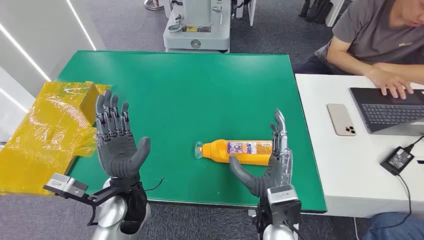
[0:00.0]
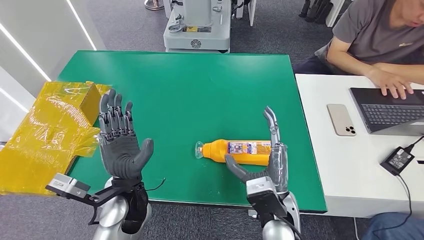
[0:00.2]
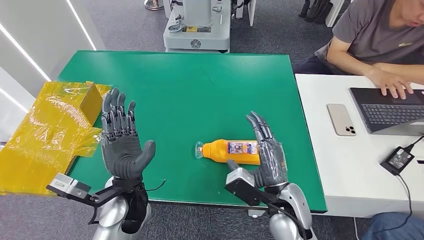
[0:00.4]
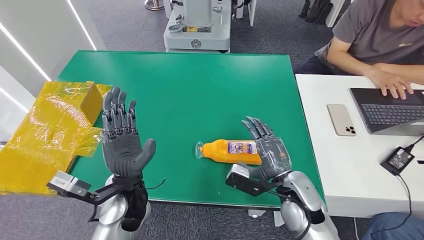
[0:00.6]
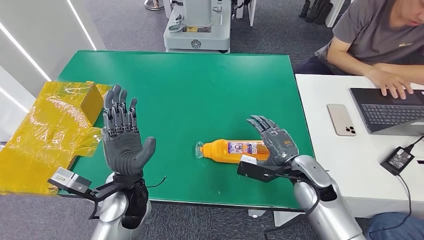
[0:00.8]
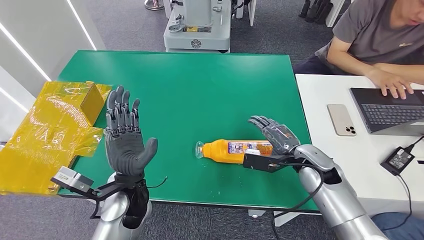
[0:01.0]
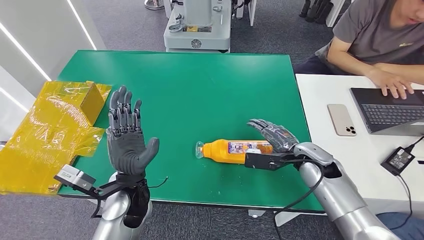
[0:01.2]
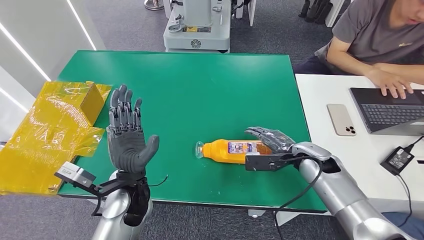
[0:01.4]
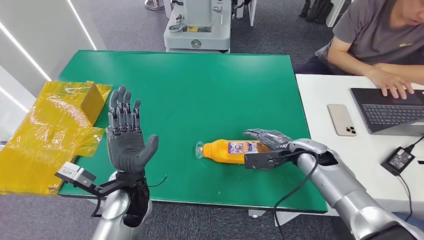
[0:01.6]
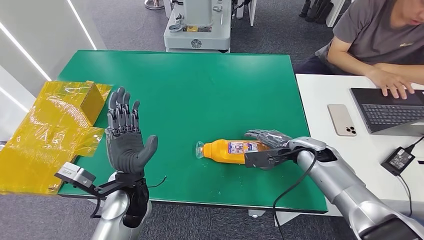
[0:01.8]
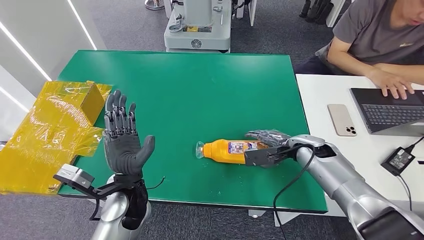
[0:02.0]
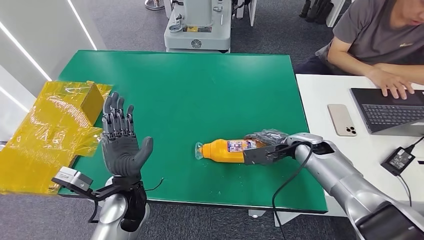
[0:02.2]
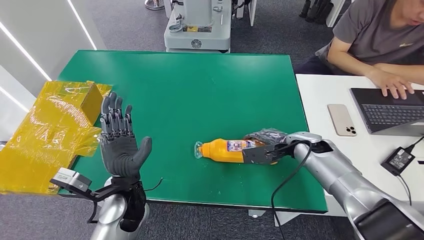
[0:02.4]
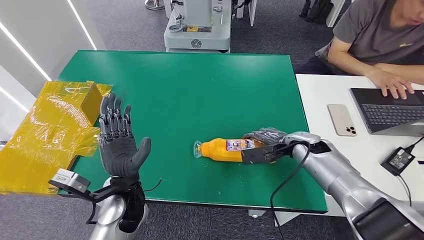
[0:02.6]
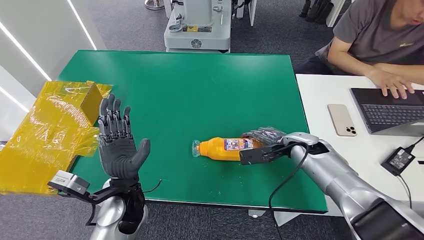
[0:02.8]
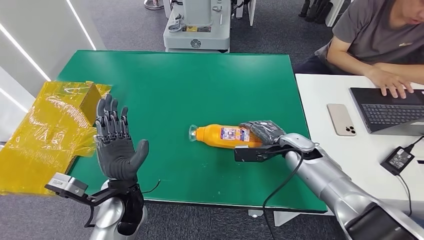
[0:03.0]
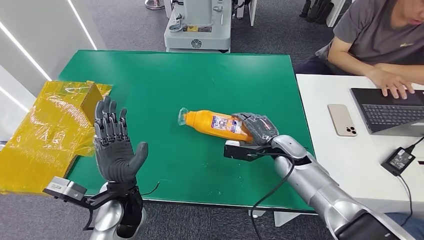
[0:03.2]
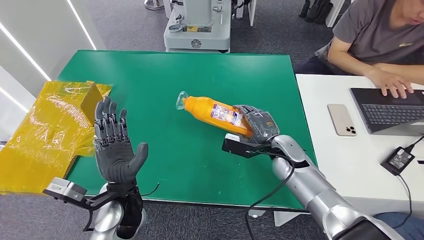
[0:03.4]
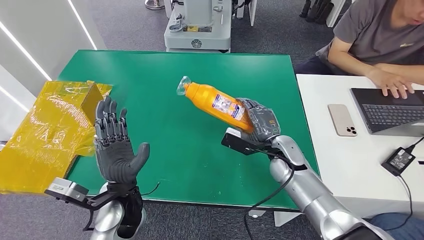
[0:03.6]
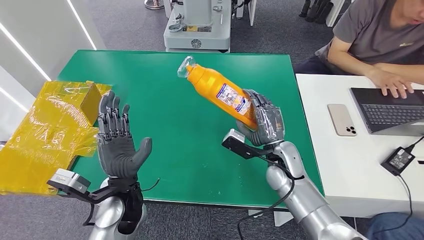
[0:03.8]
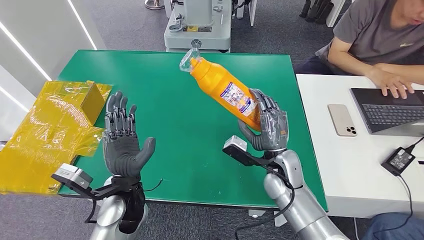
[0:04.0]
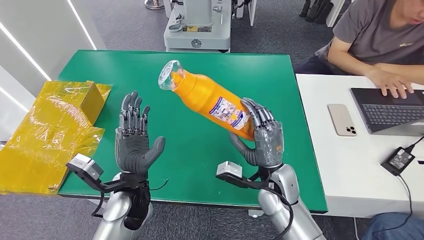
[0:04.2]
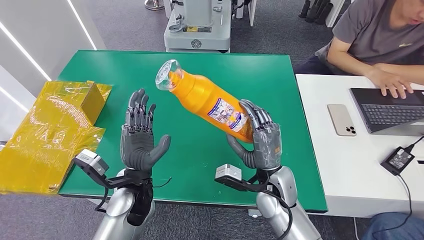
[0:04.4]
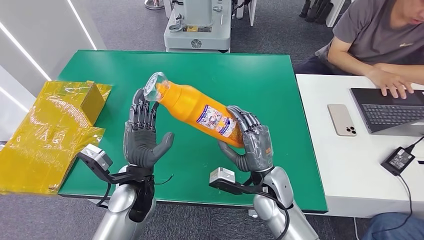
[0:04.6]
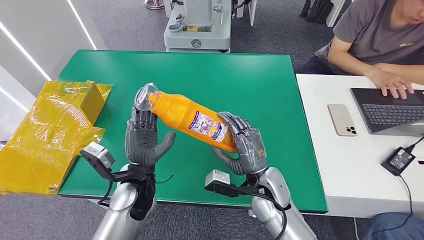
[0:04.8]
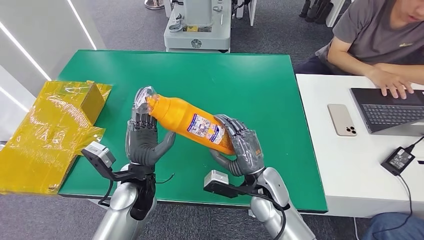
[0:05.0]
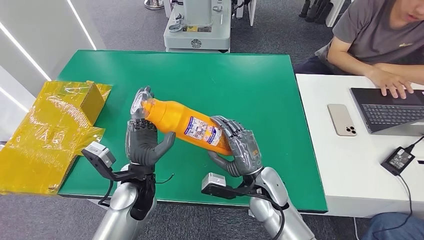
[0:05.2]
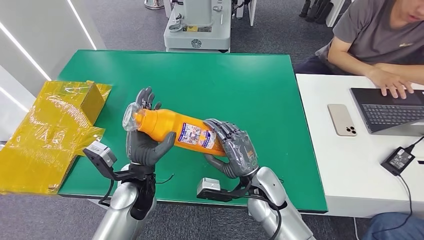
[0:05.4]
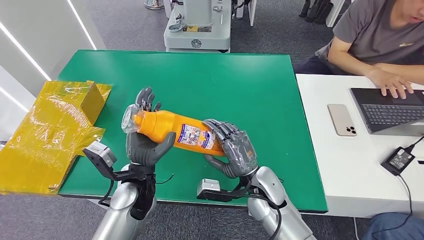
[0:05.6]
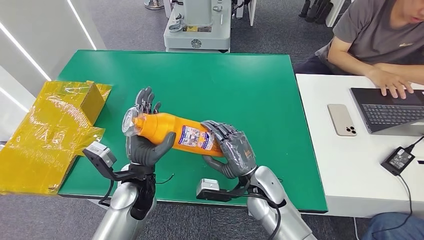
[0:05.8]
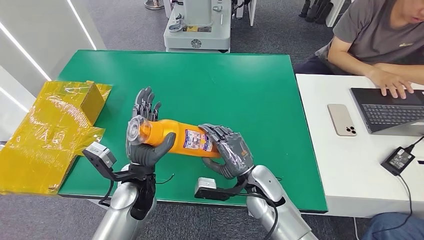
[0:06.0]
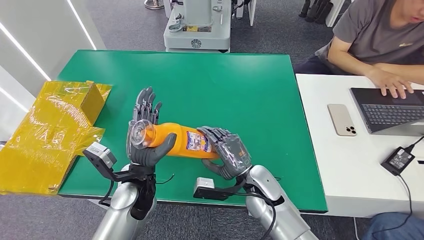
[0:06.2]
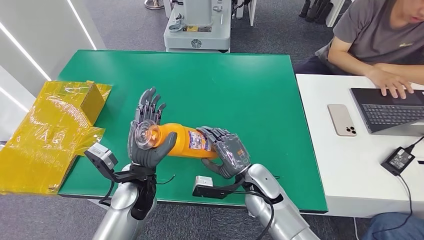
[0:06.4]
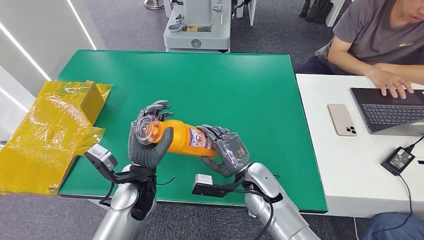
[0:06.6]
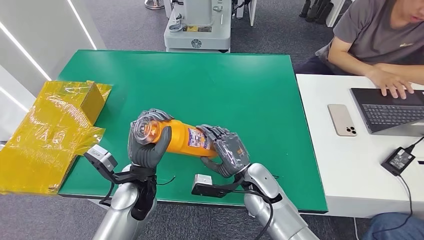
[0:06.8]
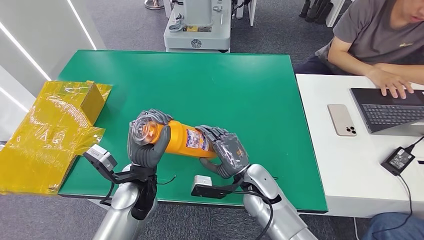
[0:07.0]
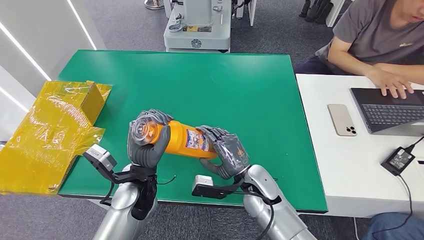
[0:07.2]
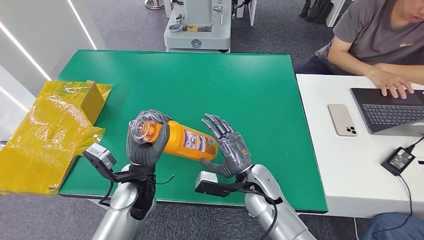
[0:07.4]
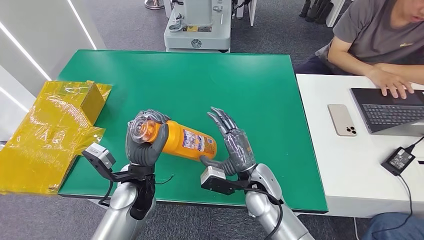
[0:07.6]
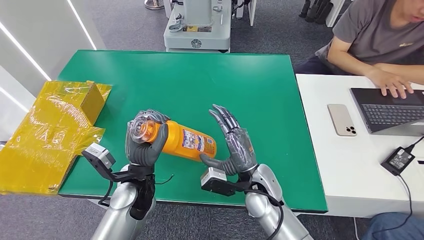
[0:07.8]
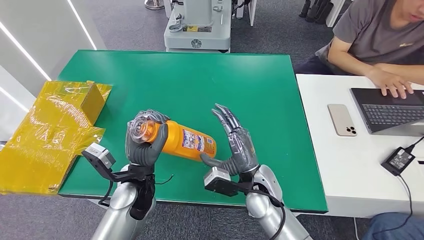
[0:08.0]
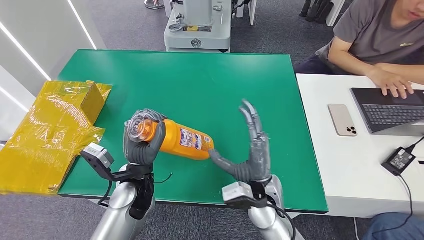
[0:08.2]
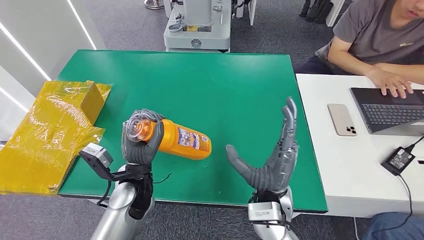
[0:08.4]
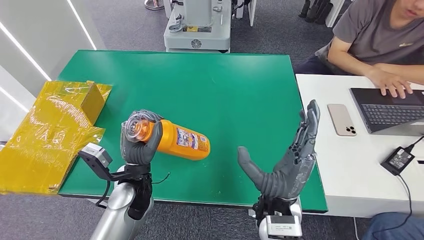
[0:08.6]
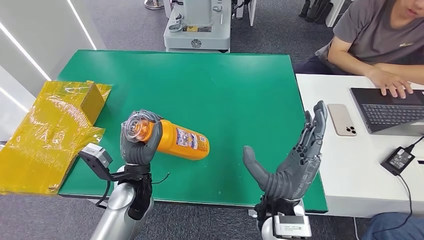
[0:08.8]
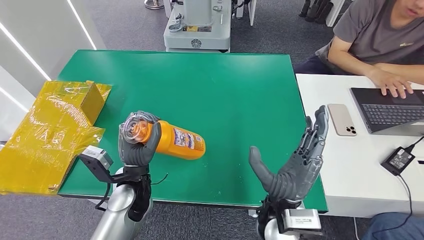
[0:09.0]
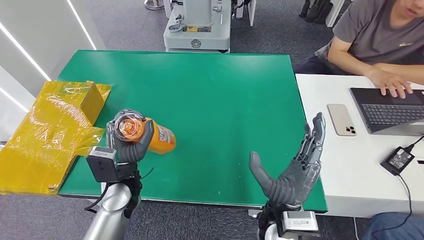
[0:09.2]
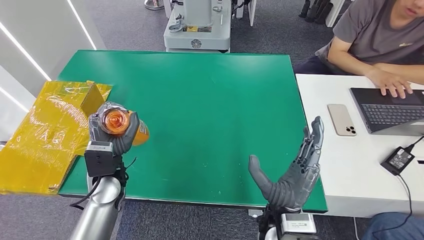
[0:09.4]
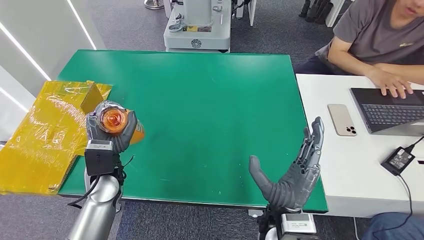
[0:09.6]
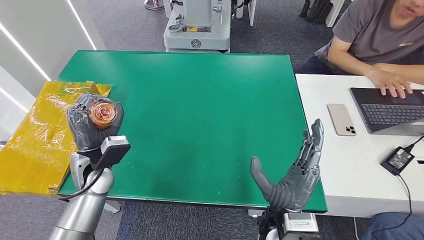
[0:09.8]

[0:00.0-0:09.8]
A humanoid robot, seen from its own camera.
Step, 0.0 to 3.6 s: Pick up the bottle from the table.
1.4 to 2.8 s: There are only small adjustments of the hands.
5.6 to 7.0 s: There are only small adjustments of the hands.
7.0 to 8.4 s: The right hand is displaced backward and upward by some 10 cm.
8.4 to 9.8 s: The left hand moves to the left, roughly 10 cm.

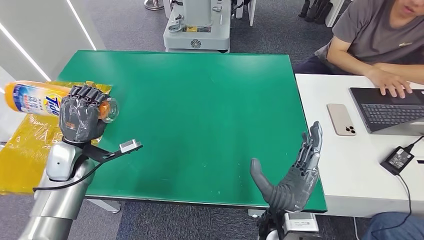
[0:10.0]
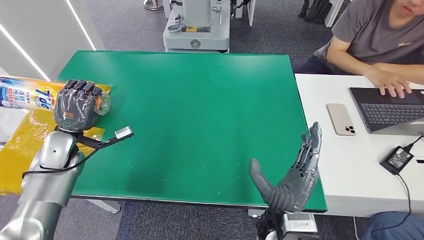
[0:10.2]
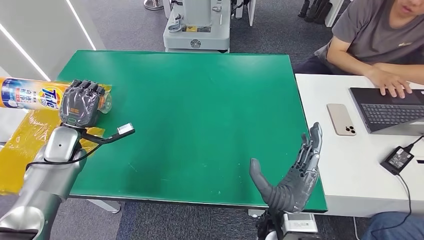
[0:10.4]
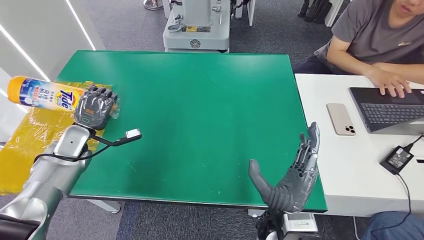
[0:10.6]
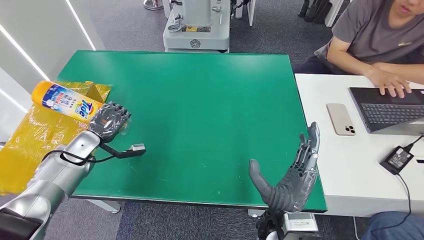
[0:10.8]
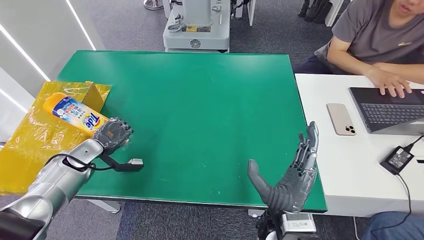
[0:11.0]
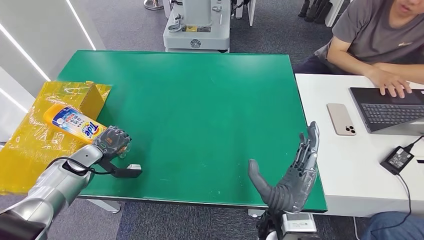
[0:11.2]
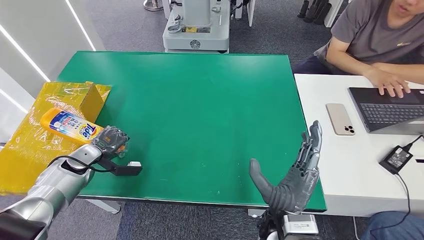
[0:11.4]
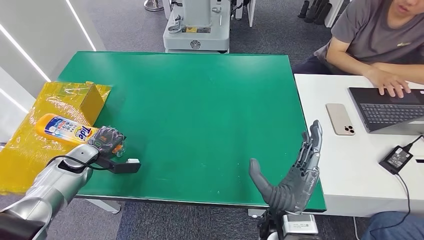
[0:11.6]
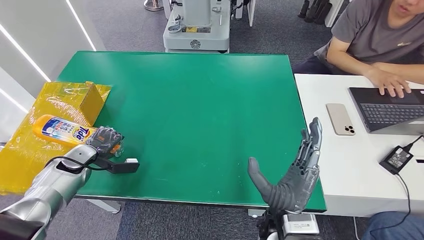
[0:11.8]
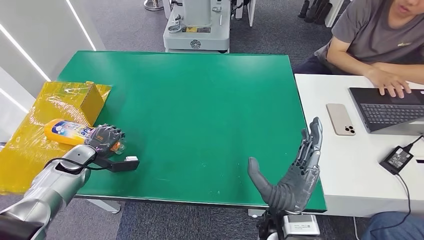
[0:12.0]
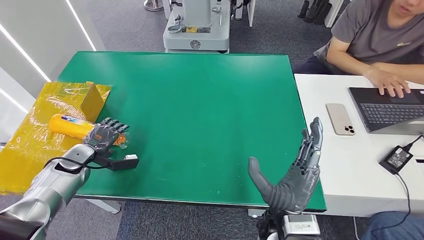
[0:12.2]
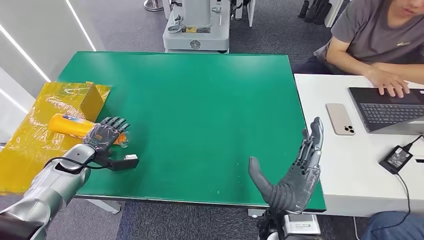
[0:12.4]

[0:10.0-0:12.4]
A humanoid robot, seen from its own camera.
Step, 10.0 to 12.2 s: Turn the bottle to the front side.
10.0 to 11.2 s: The left hand moves downward and to the left, about 10 cm.
11.2 to 12.4 s: There are only small adjustments of the hands.

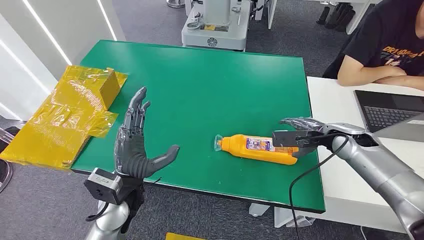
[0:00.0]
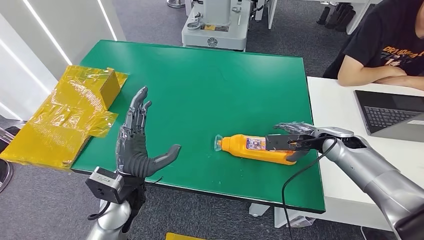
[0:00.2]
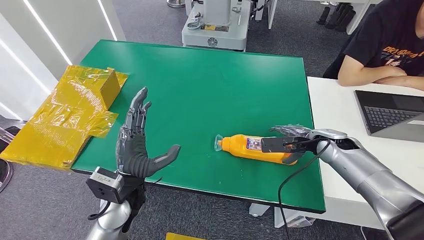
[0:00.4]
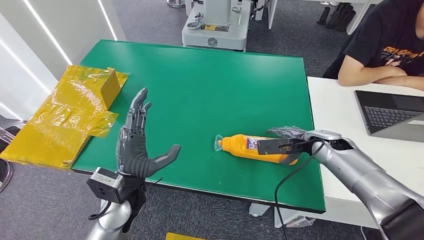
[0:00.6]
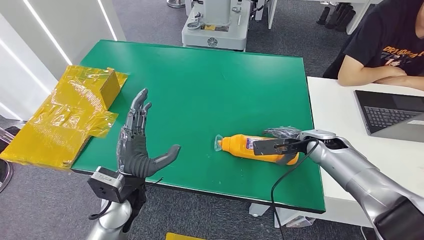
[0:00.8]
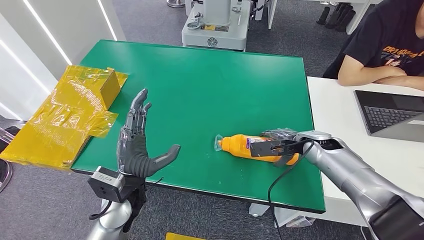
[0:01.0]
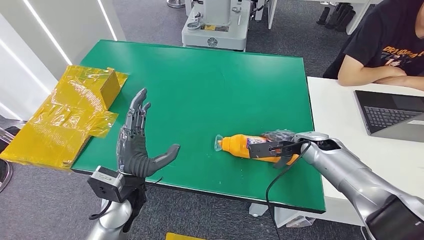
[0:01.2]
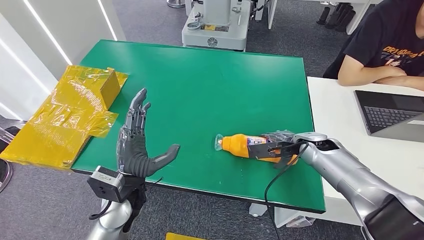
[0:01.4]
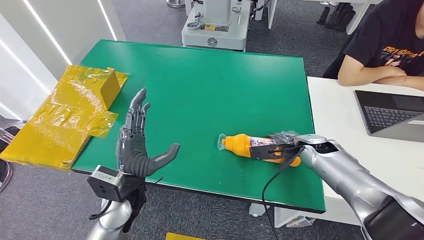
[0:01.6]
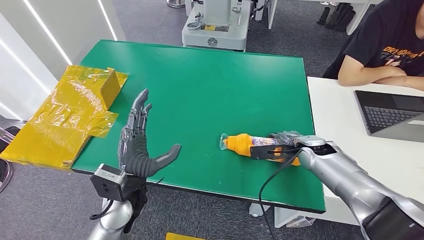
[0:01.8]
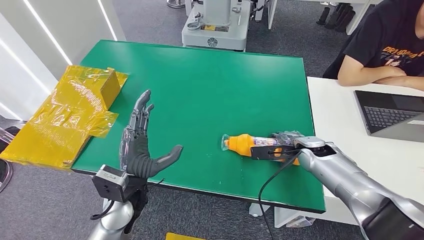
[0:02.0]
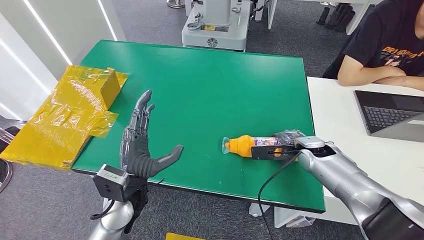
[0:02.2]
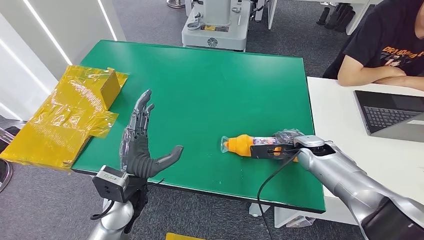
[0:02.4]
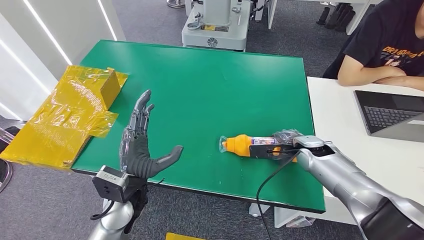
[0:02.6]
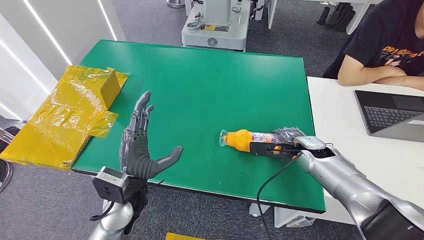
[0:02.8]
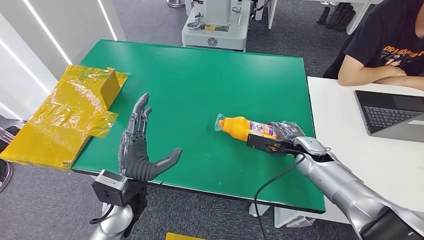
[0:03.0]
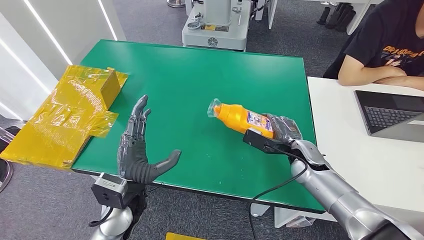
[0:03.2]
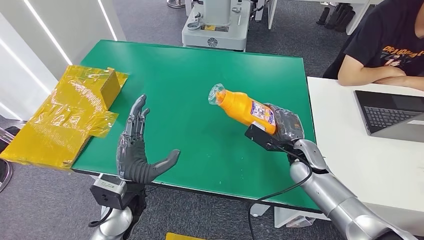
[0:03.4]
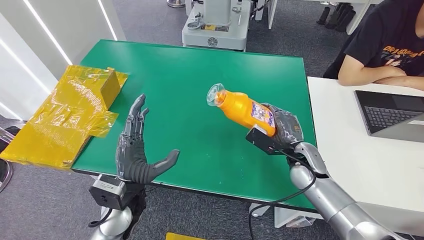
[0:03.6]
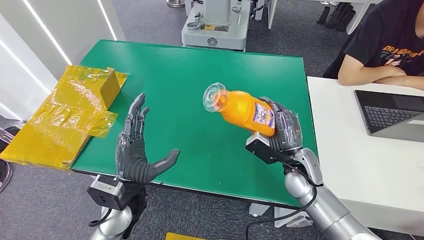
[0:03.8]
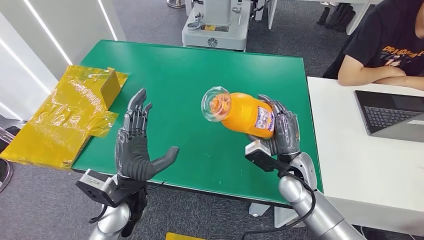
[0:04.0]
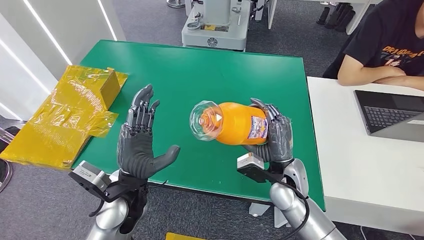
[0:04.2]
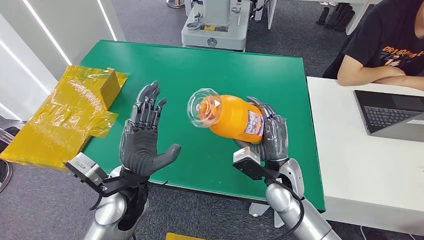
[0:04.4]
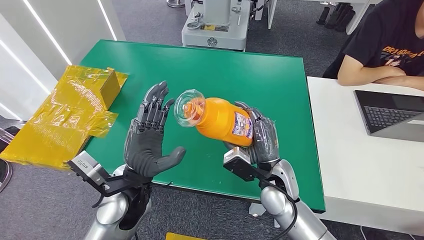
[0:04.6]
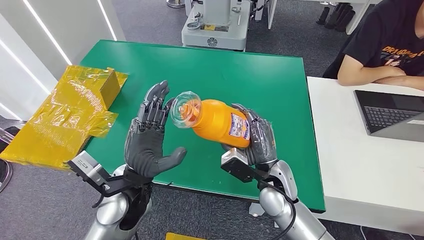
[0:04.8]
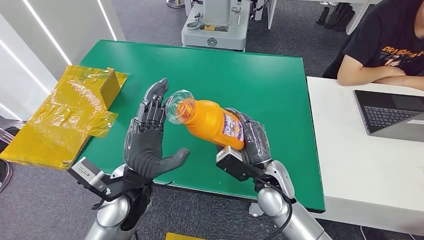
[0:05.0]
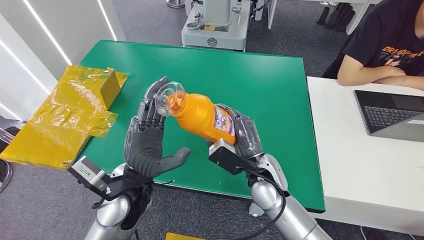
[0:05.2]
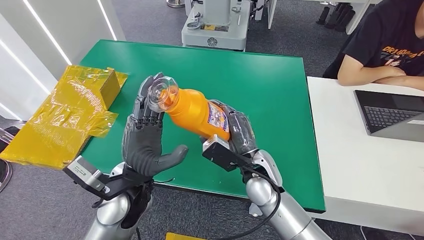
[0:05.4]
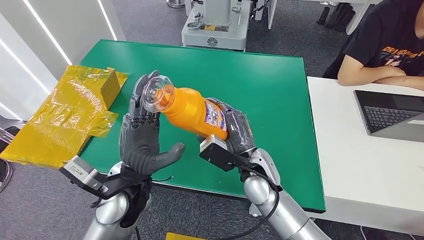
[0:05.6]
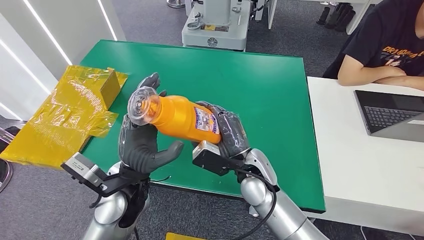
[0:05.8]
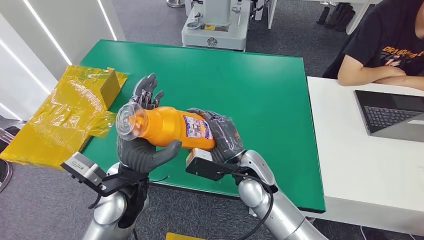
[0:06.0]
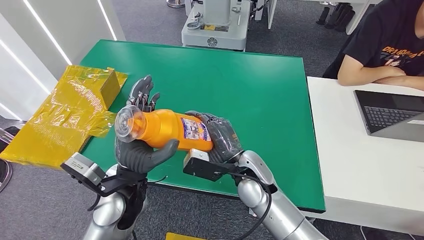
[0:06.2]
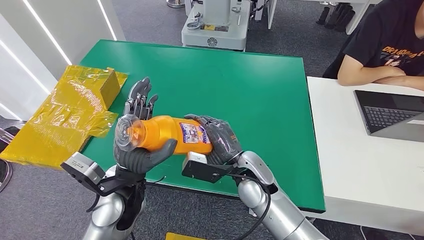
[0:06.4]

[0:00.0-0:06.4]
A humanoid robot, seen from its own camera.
Step, 0.0 to 4.6 s: Pick up the bottle from the table.
1.6 to 3.2 s: The right hand ends up some 5 cm from where it was.
3.2 to 4.8 s: The left hand ends up about 5 cm from where it was; the right hand shifts roughly 15 cm to the left and backward.
4.8 to 6.4 s: The right hand moves to the left, some 5 cm.
